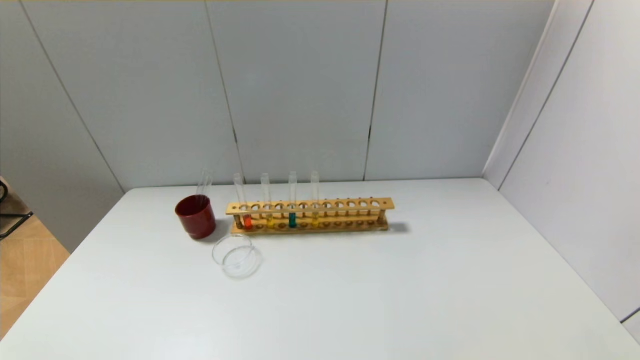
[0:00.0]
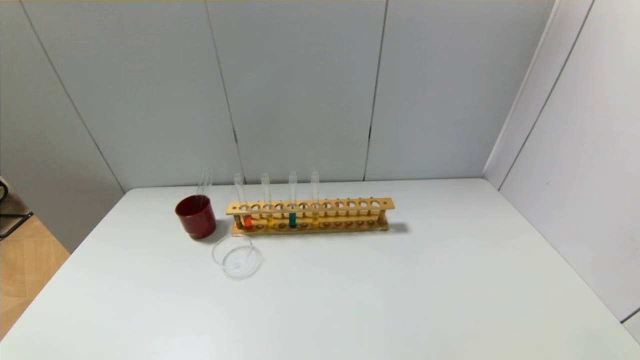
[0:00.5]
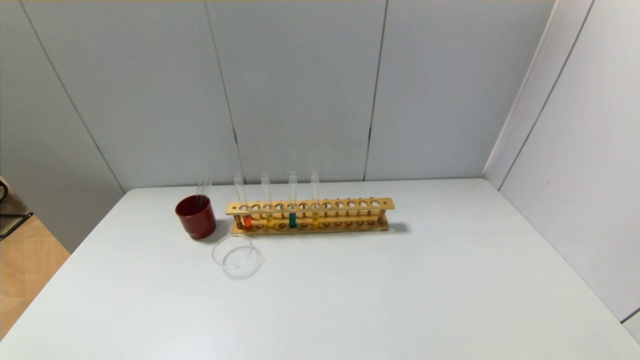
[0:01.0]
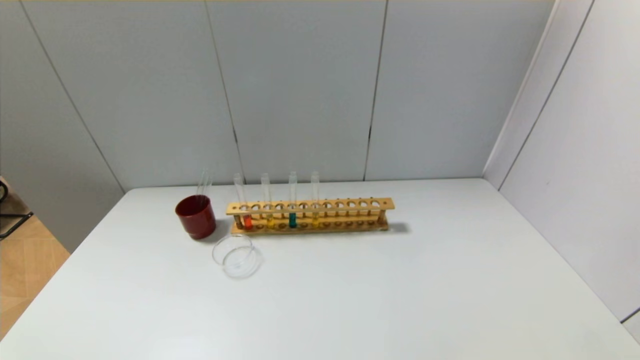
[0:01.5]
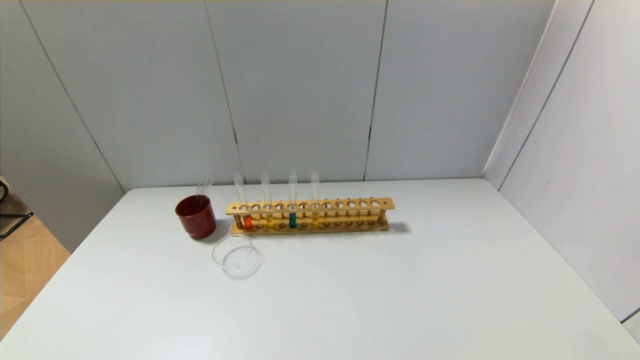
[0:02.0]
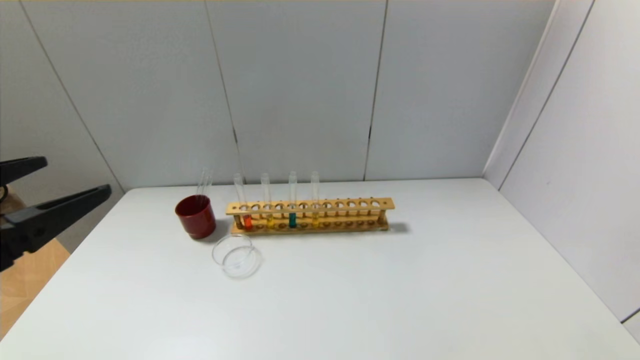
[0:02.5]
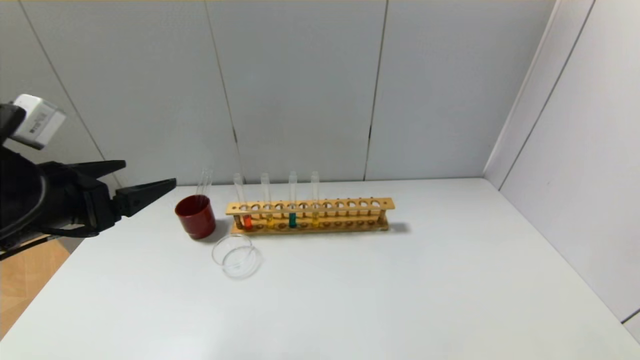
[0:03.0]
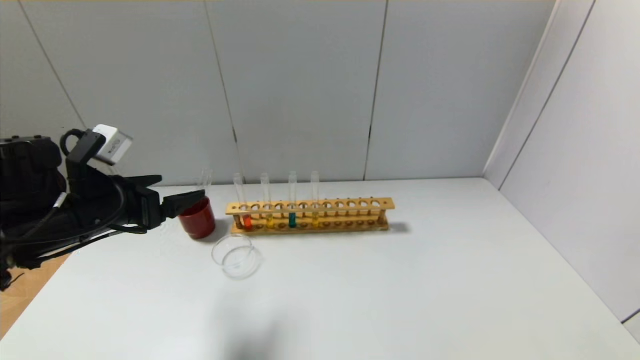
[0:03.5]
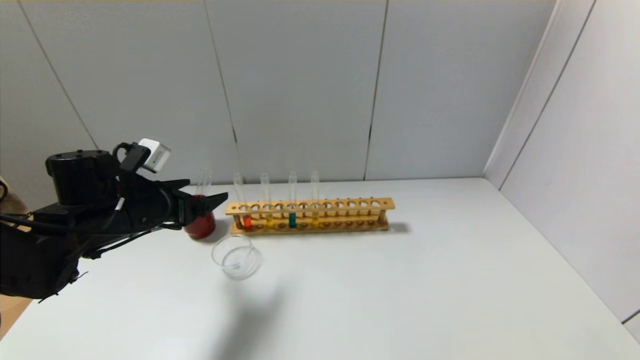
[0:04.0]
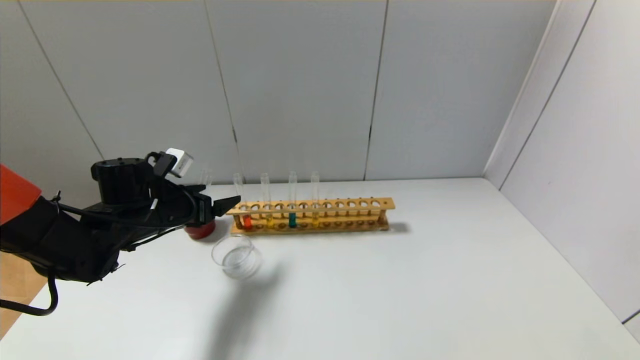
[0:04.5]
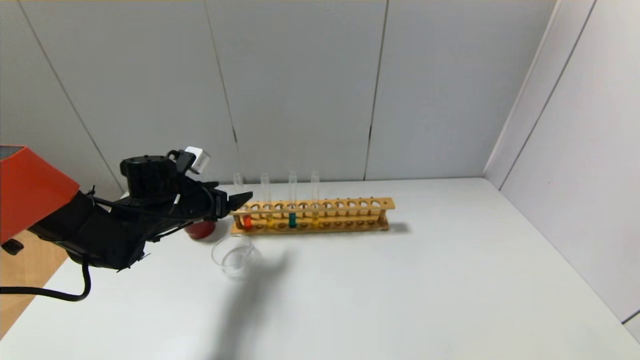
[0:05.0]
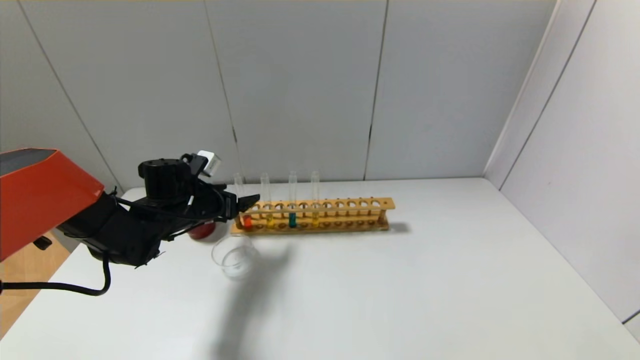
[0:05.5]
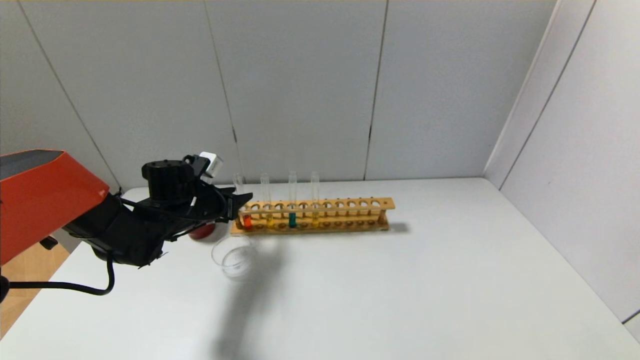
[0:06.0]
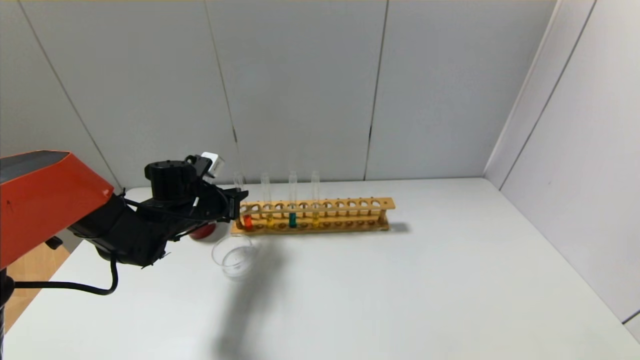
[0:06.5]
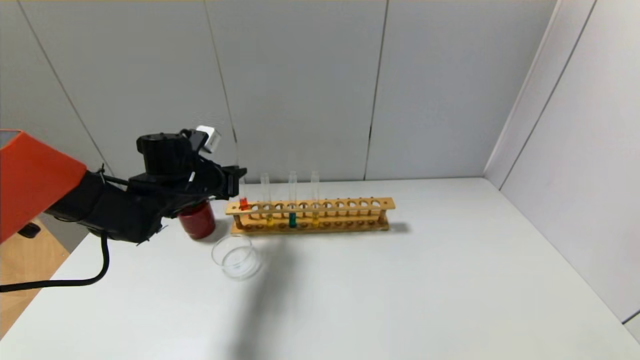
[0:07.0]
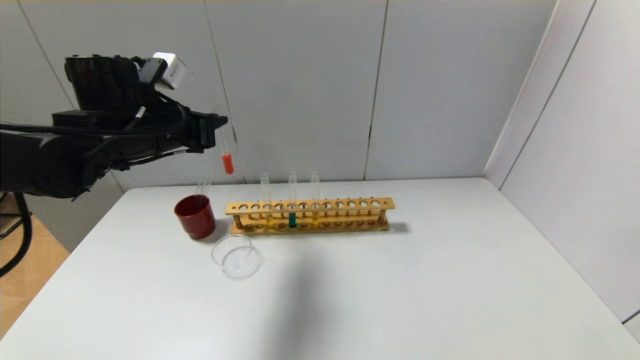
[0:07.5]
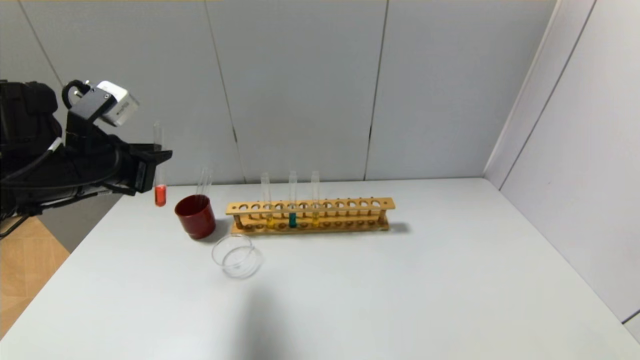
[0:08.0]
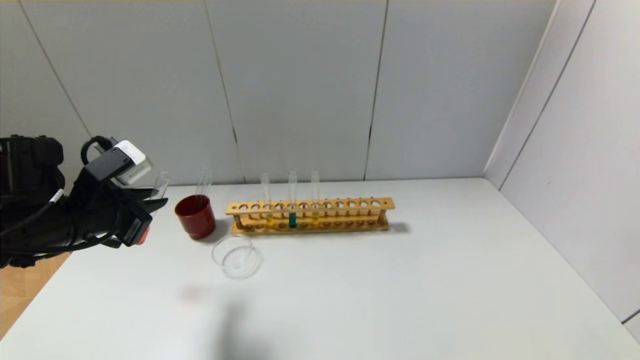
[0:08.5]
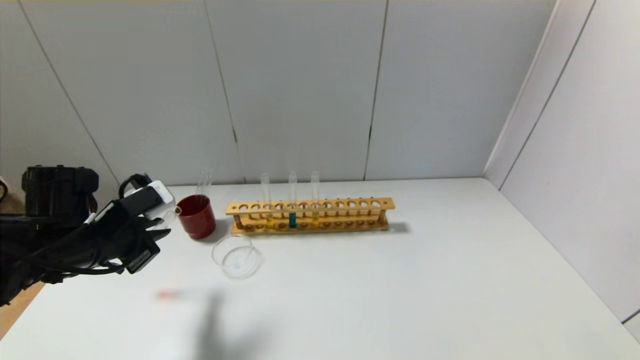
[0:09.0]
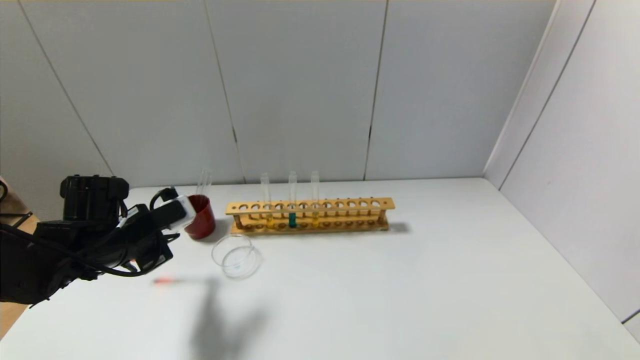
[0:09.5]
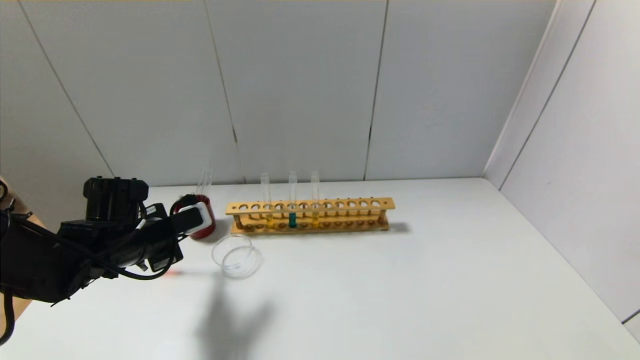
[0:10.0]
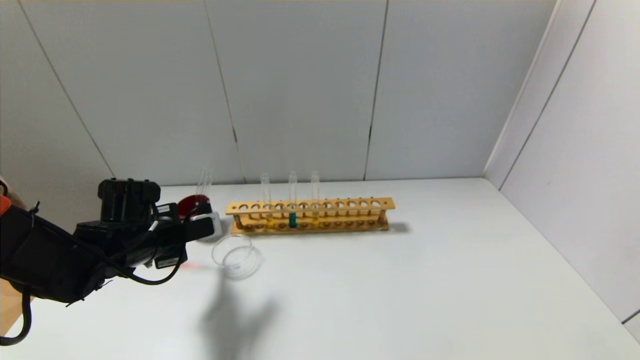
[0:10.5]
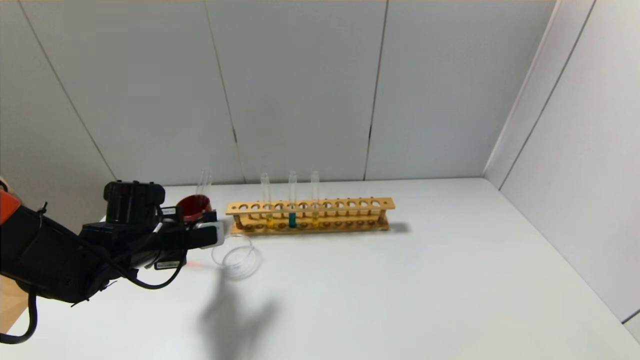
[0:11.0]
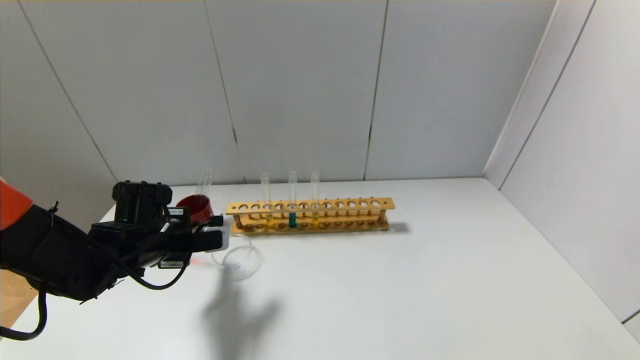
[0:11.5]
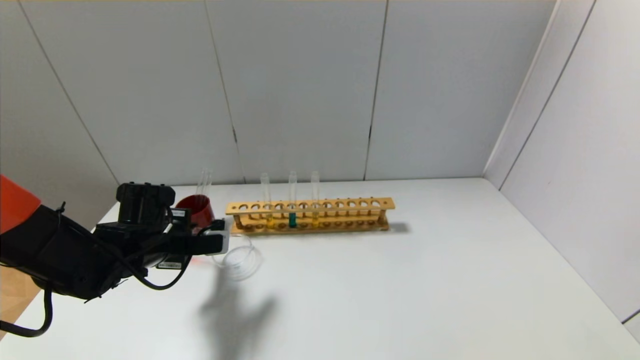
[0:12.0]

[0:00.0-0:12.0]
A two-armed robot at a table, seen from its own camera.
Step, 0:00.0 to 0:06.5: Grasp the red reagent with the left gripper.
0:02.0 to 0:04.0: The left gripper goes approximately 30 cm forward.
0:04.0 to 0:06.0: The left gripper is displaced forward and downward by approximately 10 cm, and closes its fingers.
0:06.0 to 0:08.0: The left gripper shifts roughly 20 cm upward and backward, and closes.
0:08.0 to 0:10.0: The left gripper heads downward, covering approximately 10 cm.

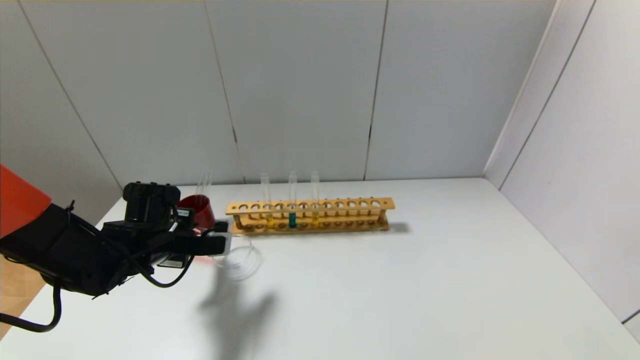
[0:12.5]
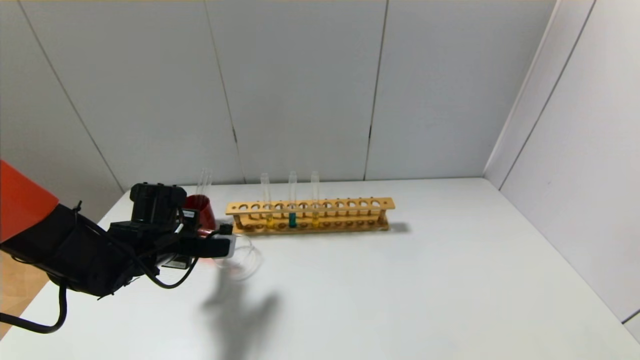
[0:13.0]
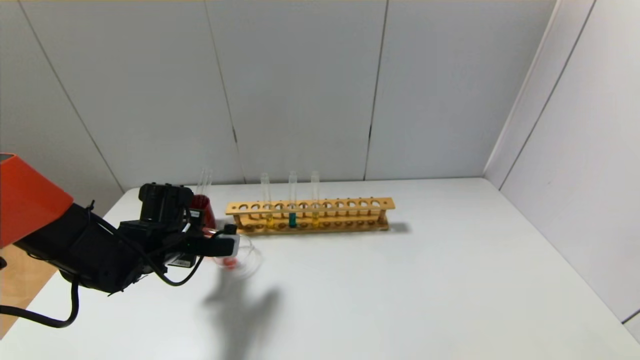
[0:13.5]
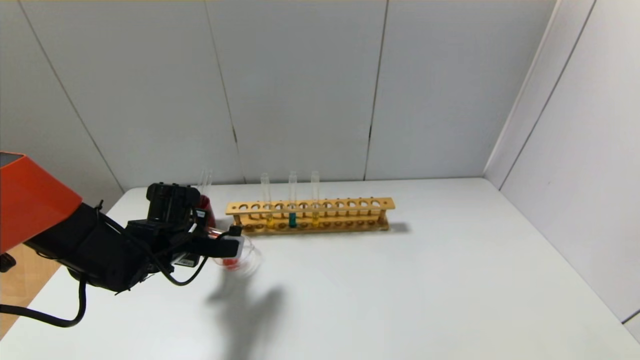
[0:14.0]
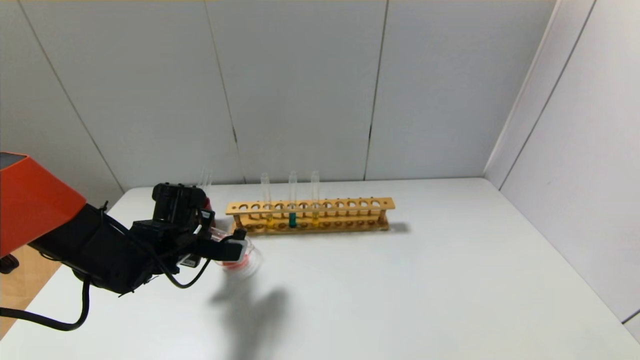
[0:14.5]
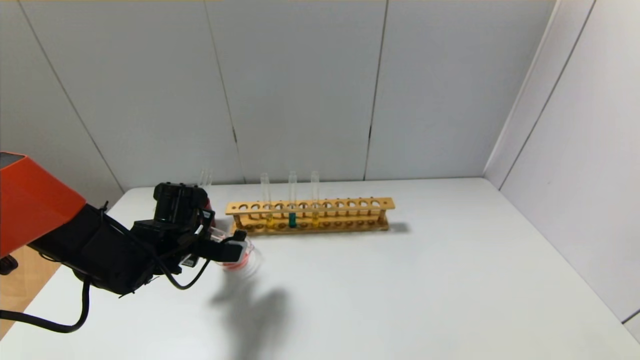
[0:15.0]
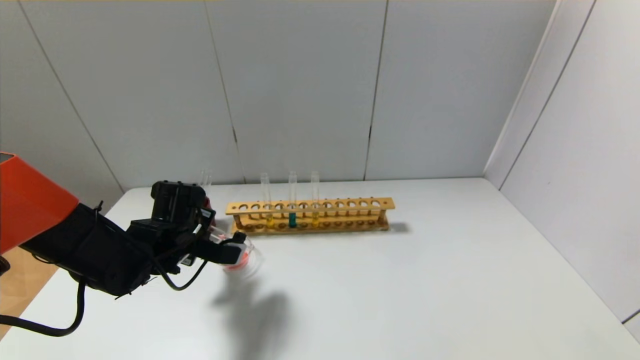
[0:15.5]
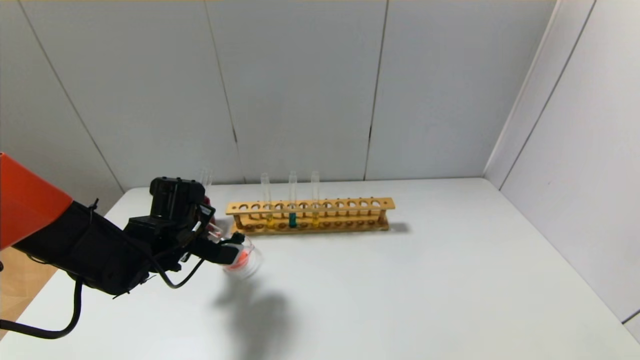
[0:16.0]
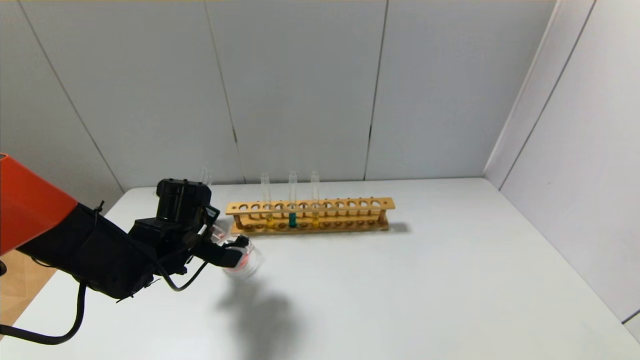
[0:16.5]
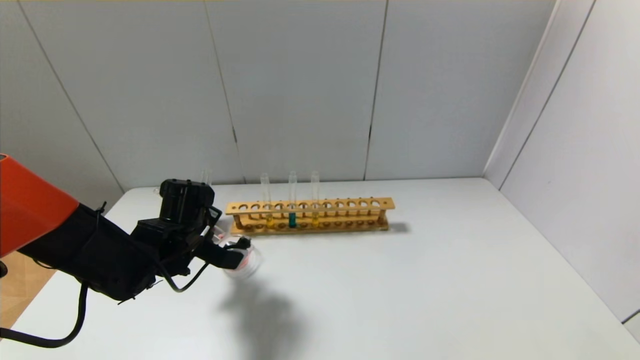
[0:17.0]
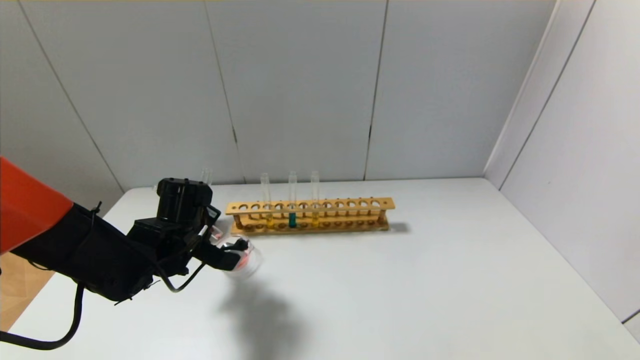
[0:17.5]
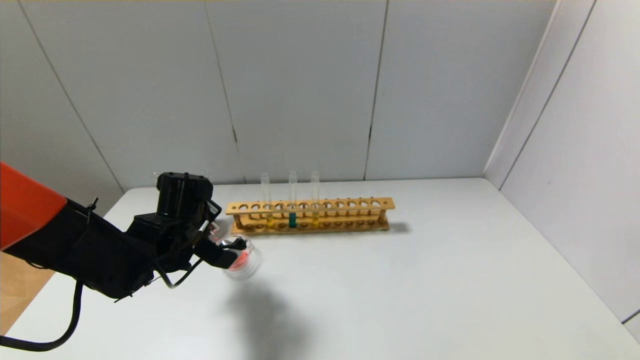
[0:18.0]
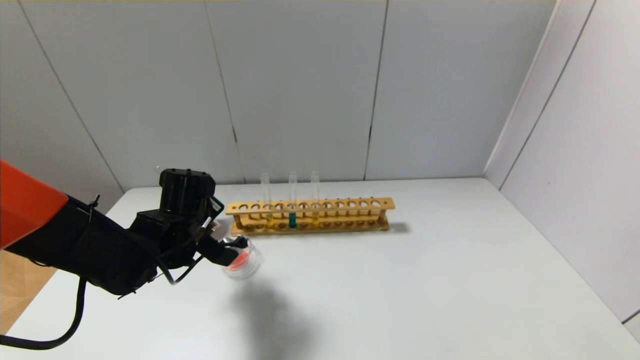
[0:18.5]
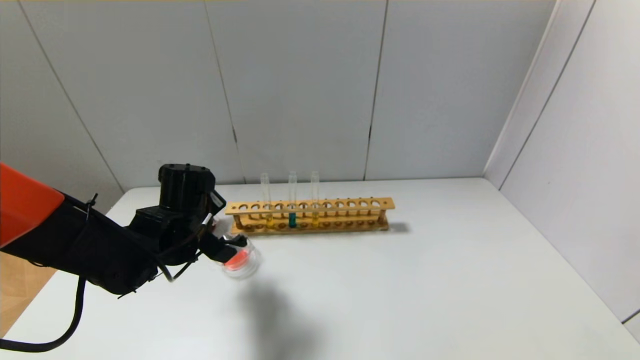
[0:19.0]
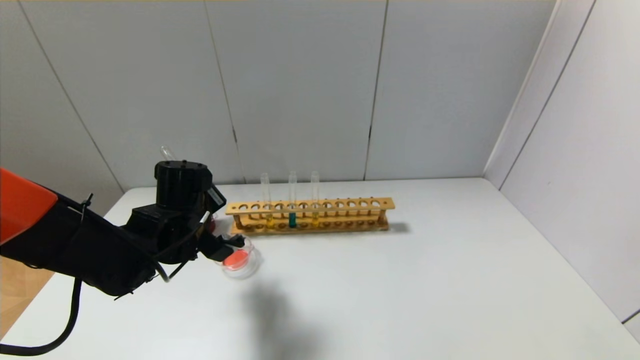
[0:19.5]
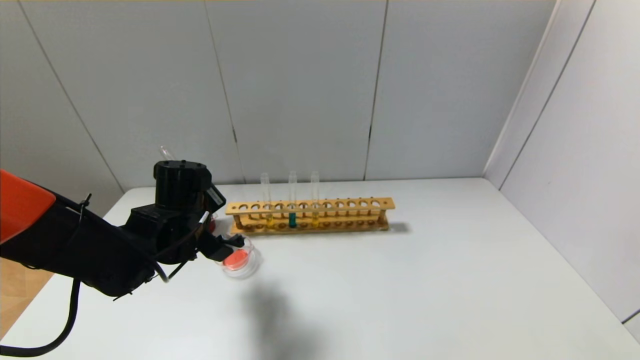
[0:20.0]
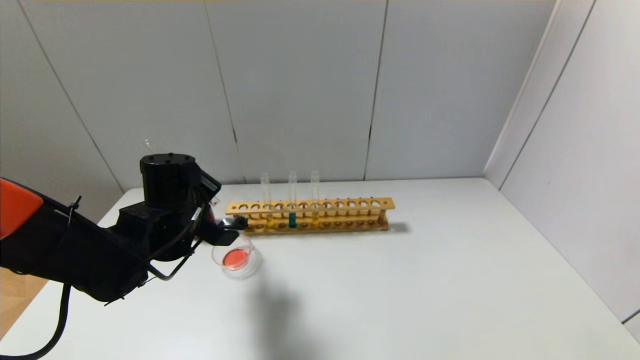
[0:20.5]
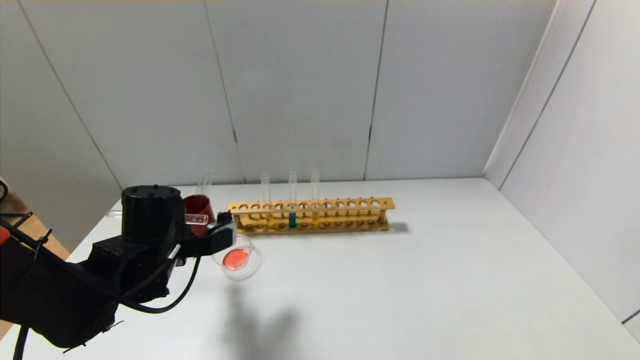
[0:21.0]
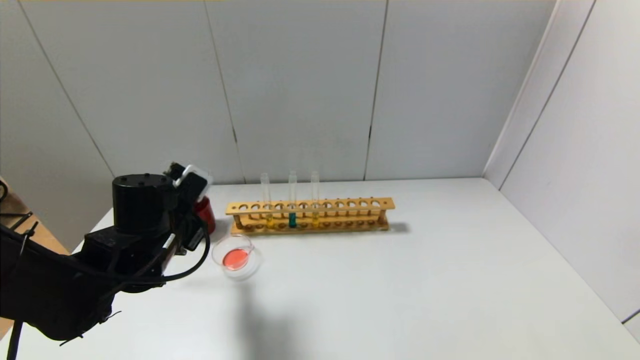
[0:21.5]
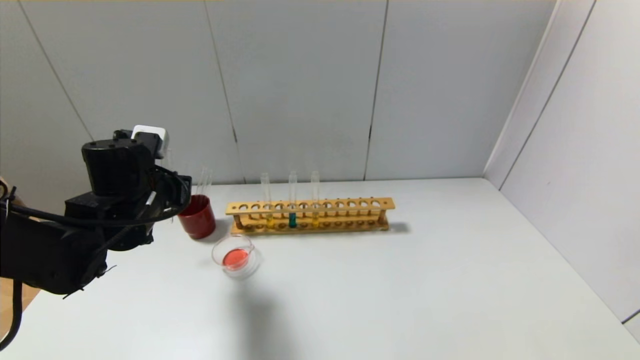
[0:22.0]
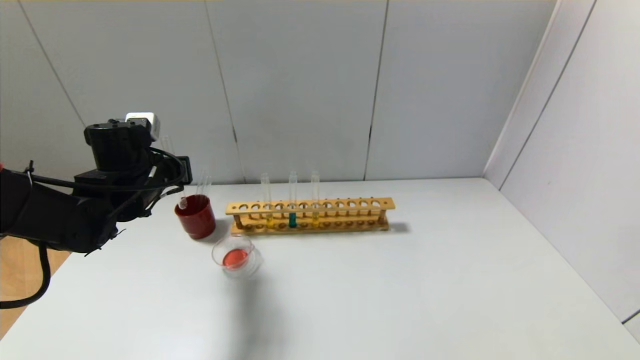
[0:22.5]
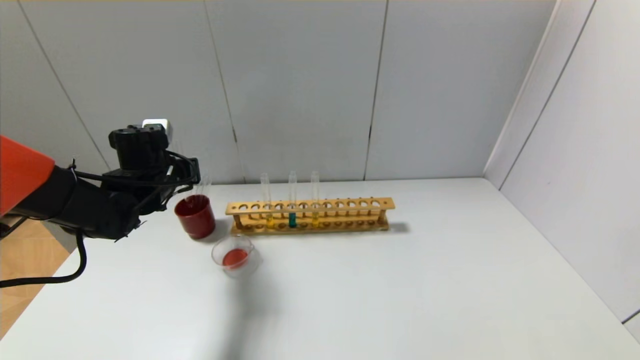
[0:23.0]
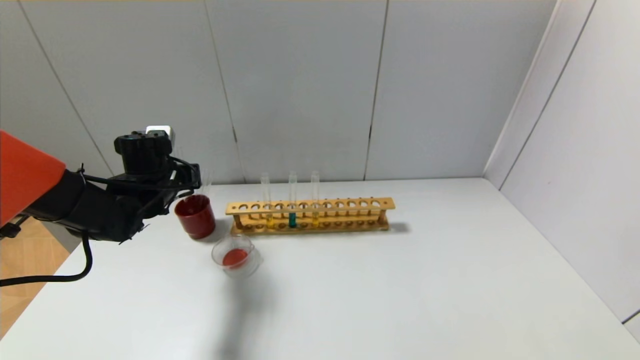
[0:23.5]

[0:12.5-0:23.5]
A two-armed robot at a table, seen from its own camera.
Step, 0:12.5 to 0:20.5: Pour the red reagent into the graduated cylinder with the left gripper.
0:12.5 to 0:14.5: There are only small adjustments of the grippers.
0:14.5 to 0:16.0: The grippers move only a little.
0:16.0 to 0:18.0: There are only small adjustments of the grippers.
0:18.0 to 0:20.0: The grippers move only a little.
0:21.5 to 0:23.5: The left gripper is displaced forward and to the left by some 15 cm.
